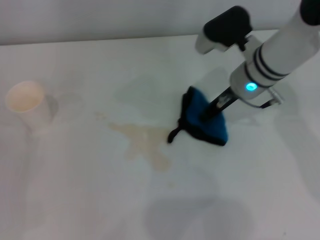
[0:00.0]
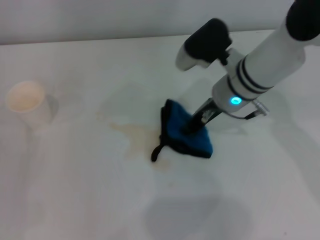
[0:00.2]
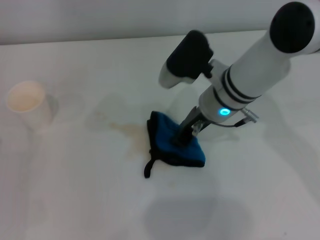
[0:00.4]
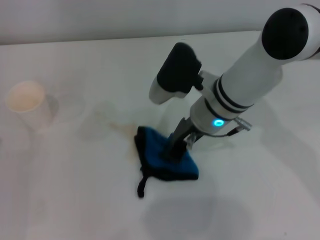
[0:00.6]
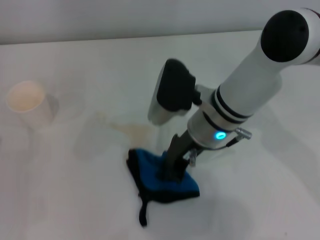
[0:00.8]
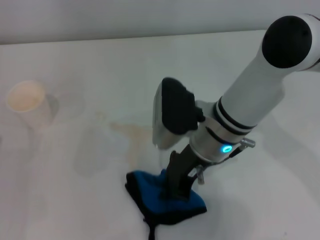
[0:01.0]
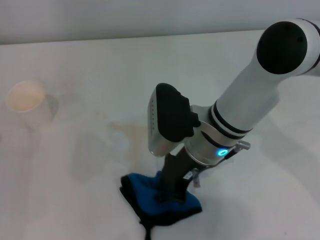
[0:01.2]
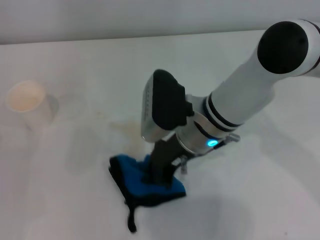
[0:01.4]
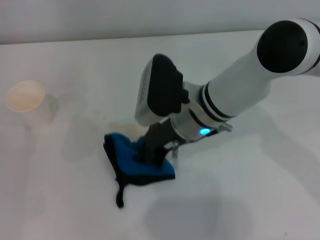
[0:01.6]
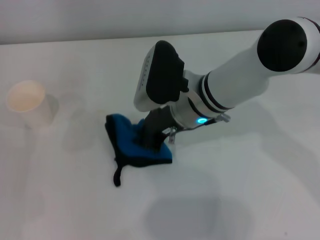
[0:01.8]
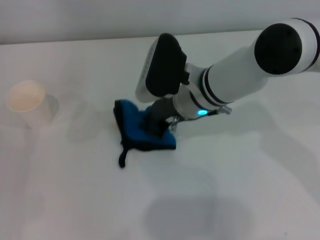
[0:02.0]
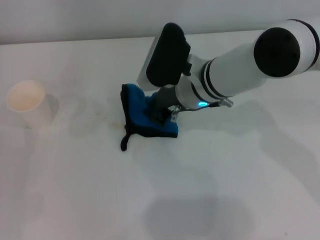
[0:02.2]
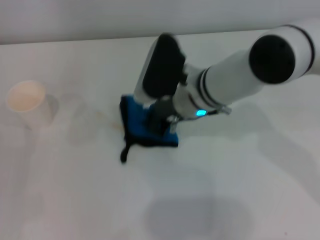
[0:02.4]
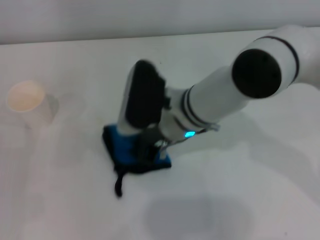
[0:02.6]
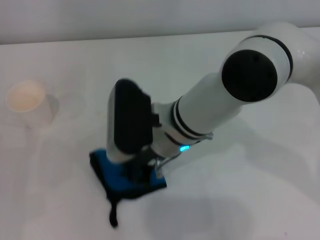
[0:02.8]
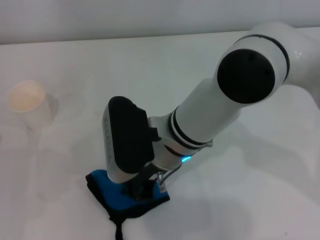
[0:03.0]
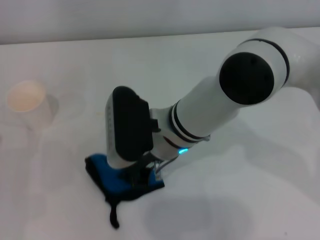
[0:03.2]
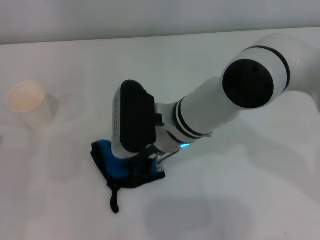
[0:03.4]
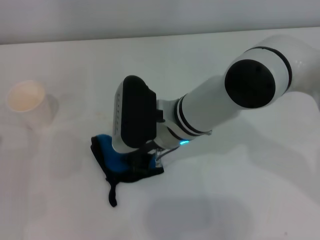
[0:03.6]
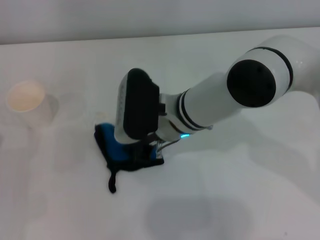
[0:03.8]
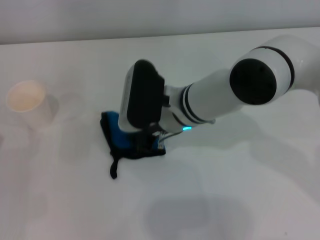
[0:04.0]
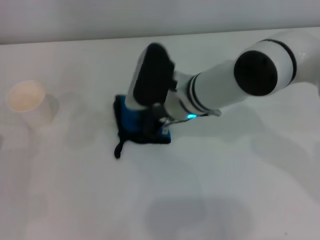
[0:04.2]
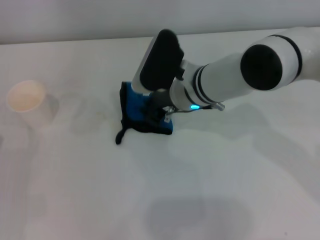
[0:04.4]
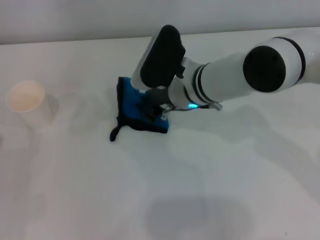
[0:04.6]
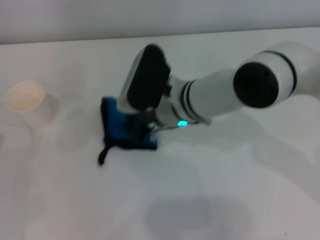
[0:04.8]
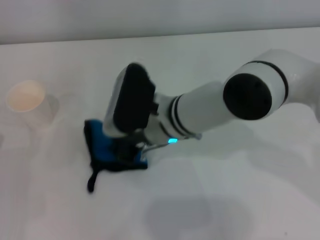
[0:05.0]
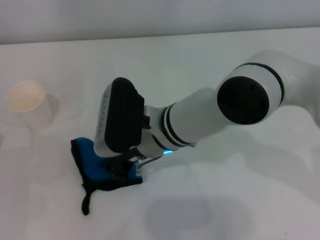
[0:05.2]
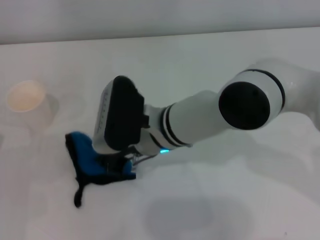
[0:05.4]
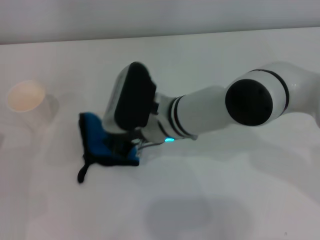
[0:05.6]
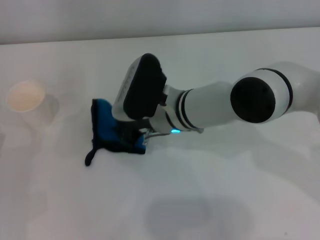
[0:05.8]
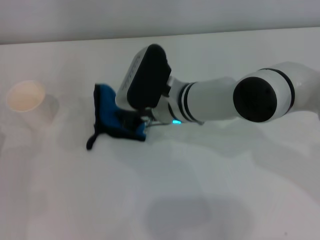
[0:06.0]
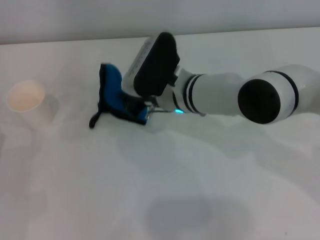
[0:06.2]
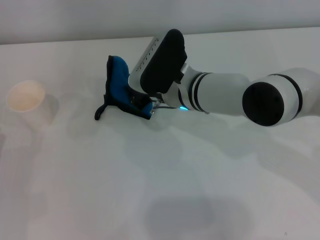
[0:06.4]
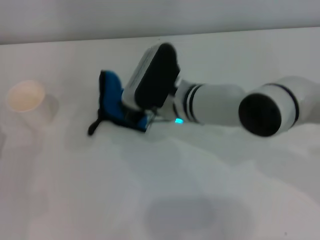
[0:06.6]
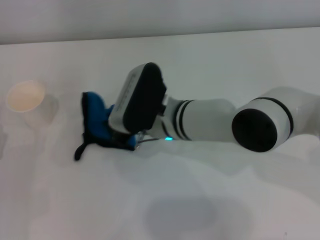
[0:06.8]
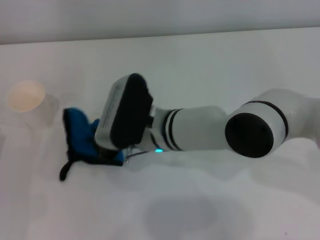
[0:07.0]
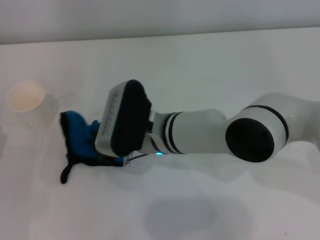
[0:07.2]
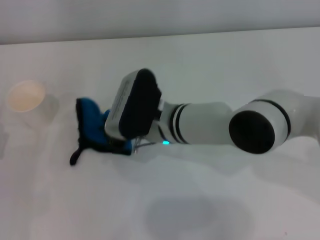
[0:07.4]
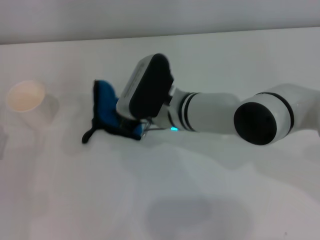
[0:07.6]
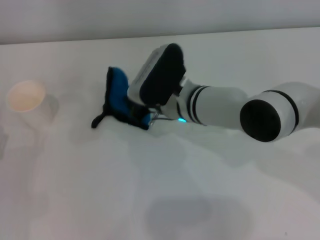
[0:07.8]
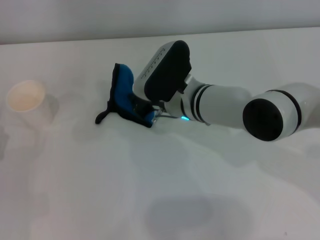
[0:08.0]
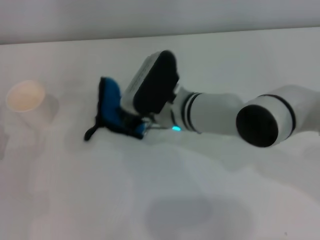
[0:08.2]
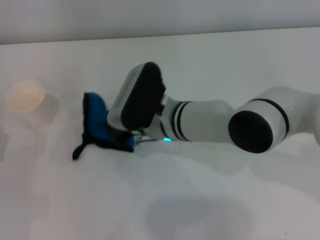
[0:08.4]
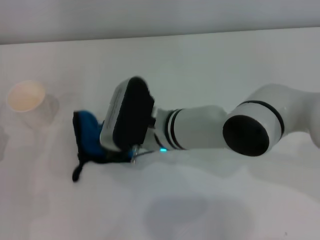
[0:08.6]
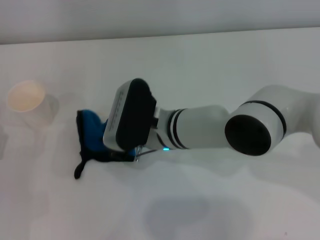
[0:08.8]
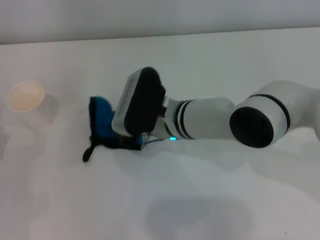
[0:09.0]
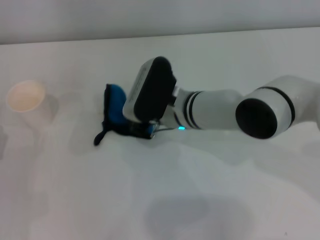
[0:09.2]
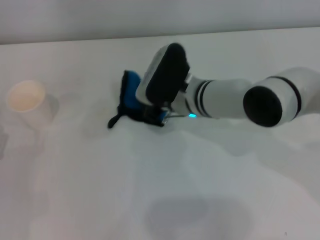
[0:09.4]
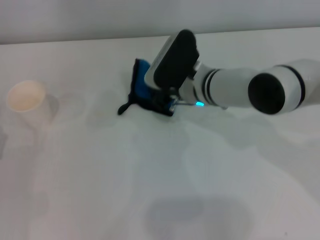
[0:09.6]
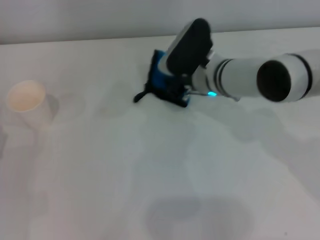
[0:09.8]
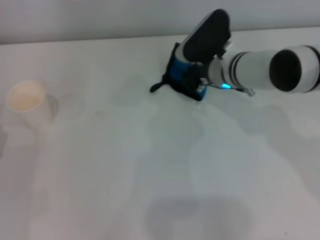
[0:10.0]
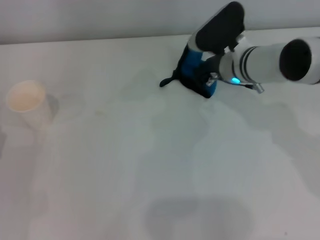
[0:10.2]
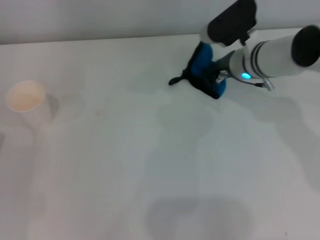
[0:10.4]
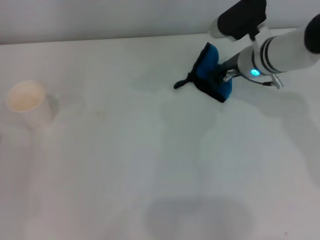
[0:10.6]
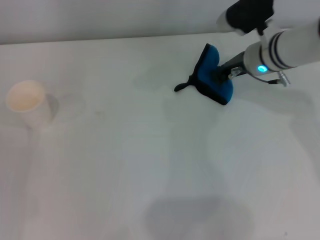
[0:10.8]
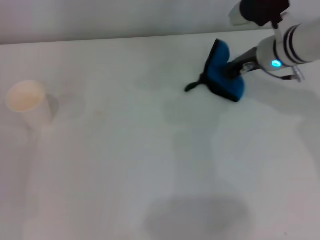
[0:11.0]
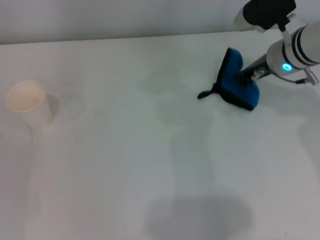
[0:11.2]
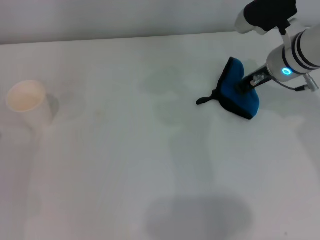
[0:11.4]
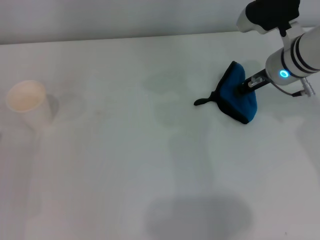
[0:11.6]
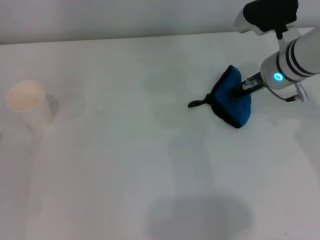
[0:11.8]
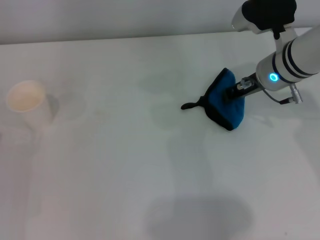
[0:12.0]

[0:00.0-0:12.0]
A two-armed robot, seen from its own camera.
0:00.0 to 0:01.6: The right gripper heads to the left and backward, covering about 10 cm.
0:01.6 to 0:03.0: The right gripper moves about 5 cm.
0:03.0 to 0:04.4: The right gripper heads forward, covering about 10 cm.
0:06.0 to 0:09.0: There are only small adjustments of the grippers.
0:09.0 to 0:10.4: The right gripper shifts approximately 15 cm to the right and forward.
0:10.4 to 0:12.0: The right gripper moves some 5 cm.

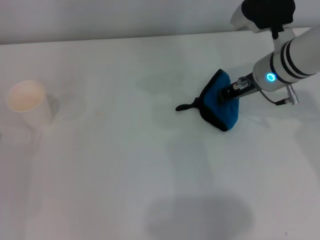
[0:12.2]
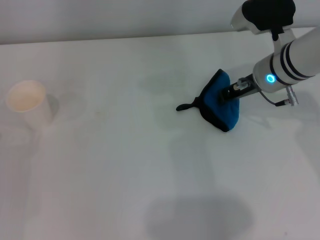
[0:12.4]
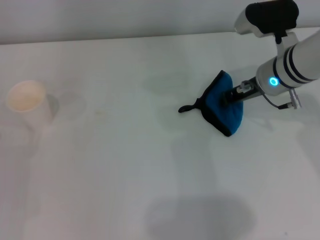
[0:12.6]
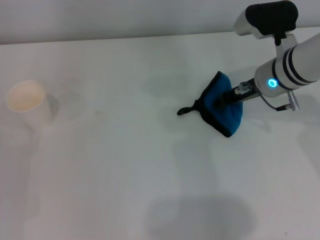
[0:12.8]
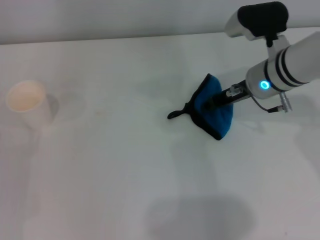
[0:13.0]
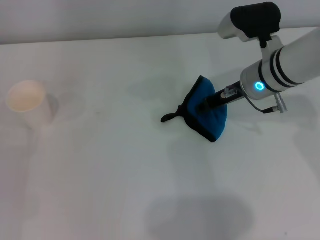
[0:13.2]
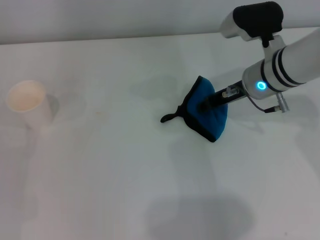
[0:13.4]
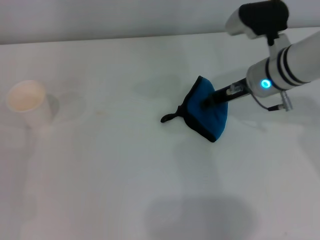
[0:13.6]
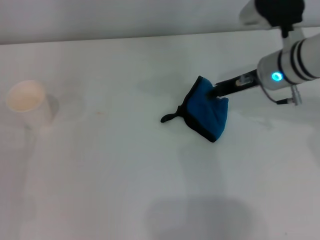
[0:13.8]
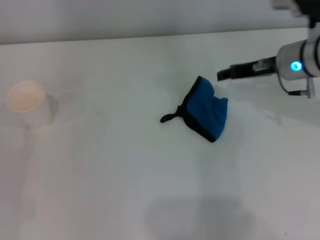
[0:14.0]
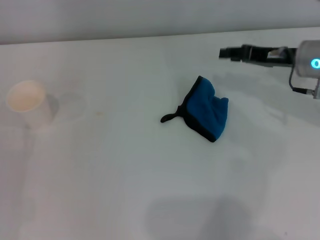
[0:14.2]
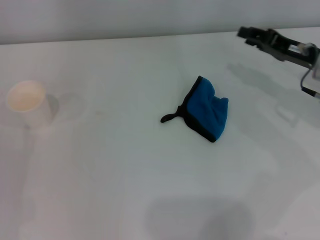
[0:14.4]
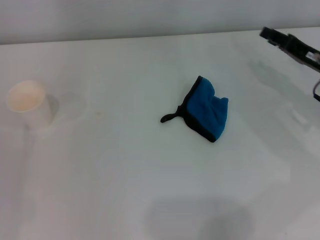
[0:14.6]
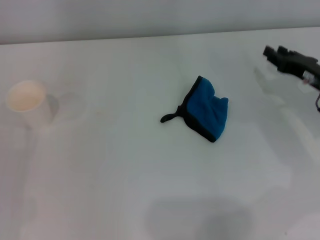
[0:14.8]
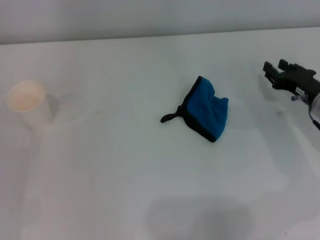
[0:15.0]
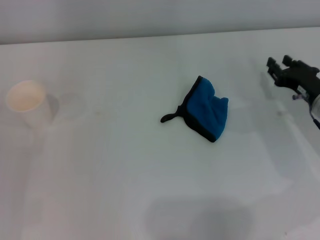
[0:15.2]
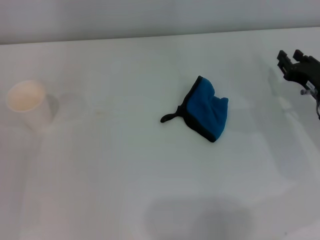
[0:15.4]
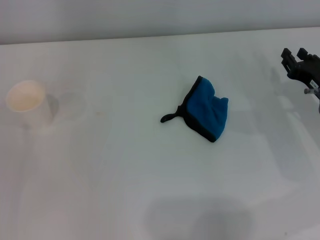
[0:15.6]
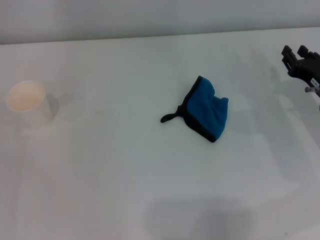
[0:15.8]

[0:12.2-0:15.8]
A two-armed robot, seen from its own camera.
Step, 0:12.8 to 0:13.4: Place the rag on the table with the right gripper.
0:12.2 to 0:14.0: The right gripper opens up.
0:14.0 to 0:15.8: The right gripper shifts roughly 15 cm downward, to the right and backward.
